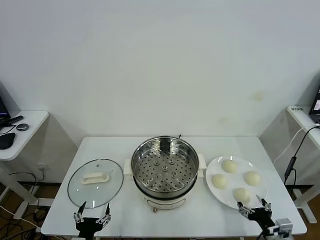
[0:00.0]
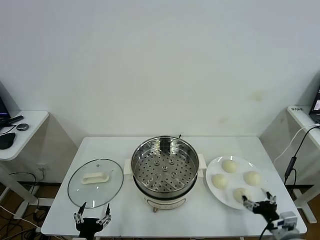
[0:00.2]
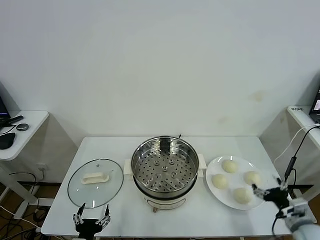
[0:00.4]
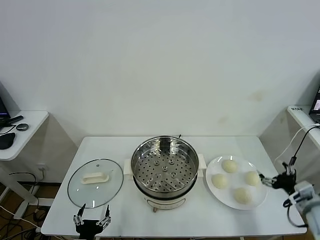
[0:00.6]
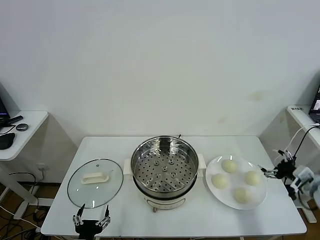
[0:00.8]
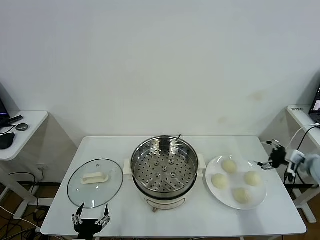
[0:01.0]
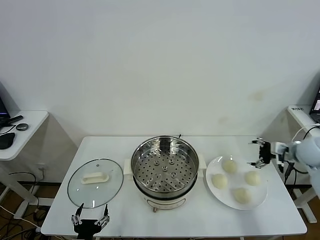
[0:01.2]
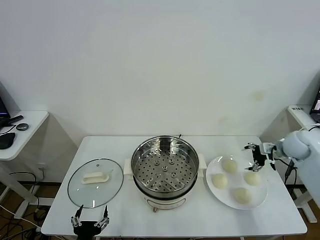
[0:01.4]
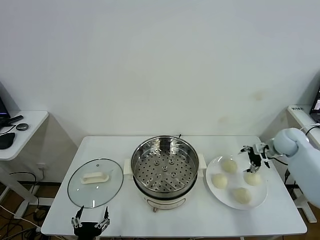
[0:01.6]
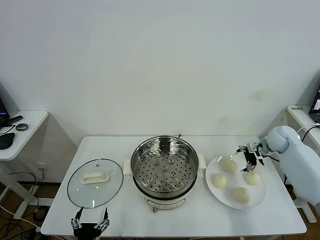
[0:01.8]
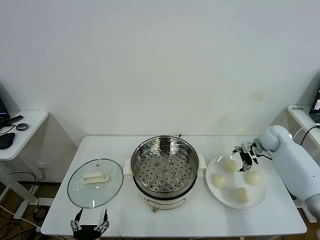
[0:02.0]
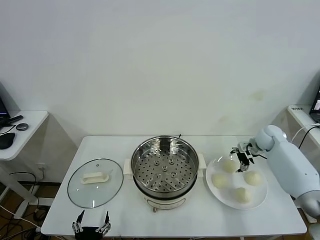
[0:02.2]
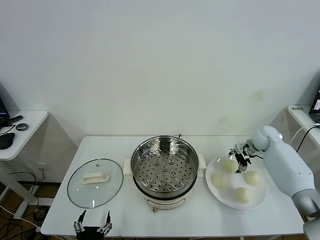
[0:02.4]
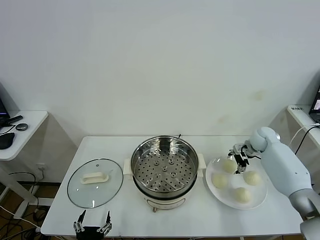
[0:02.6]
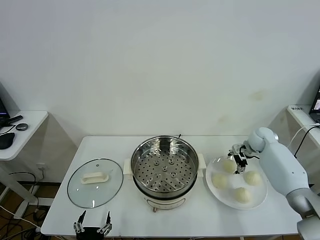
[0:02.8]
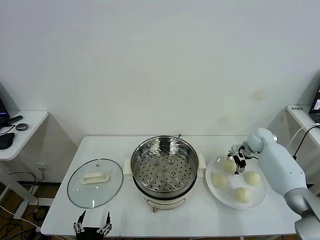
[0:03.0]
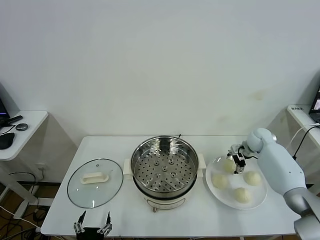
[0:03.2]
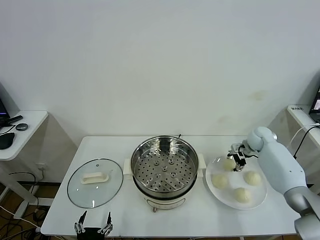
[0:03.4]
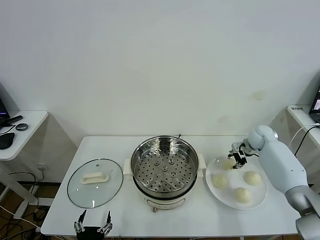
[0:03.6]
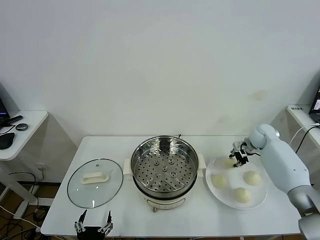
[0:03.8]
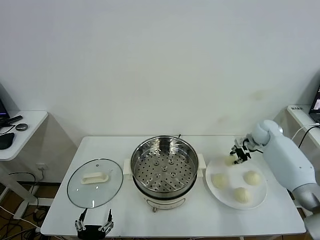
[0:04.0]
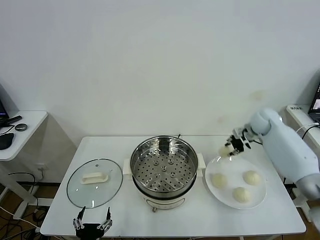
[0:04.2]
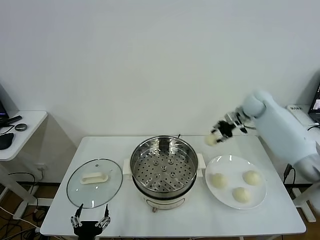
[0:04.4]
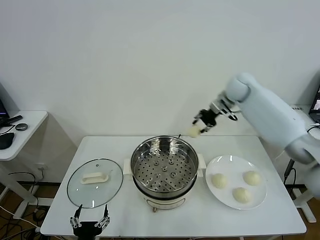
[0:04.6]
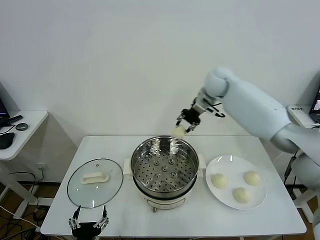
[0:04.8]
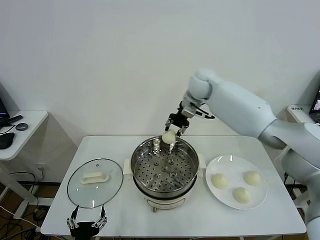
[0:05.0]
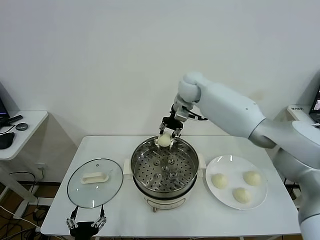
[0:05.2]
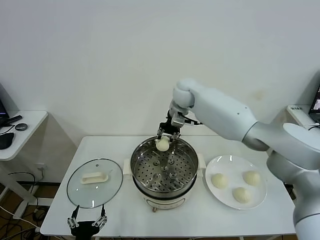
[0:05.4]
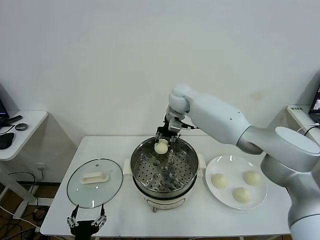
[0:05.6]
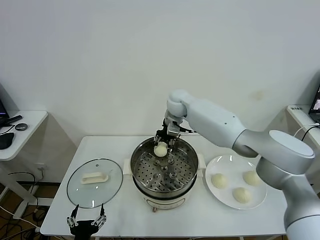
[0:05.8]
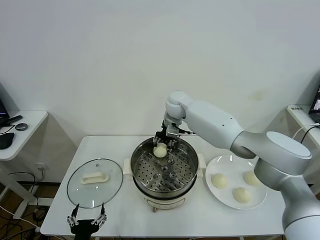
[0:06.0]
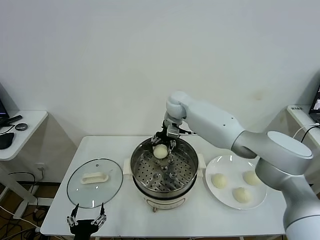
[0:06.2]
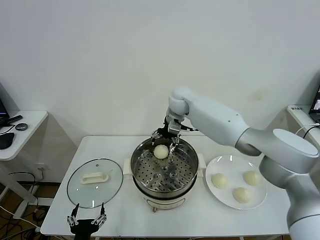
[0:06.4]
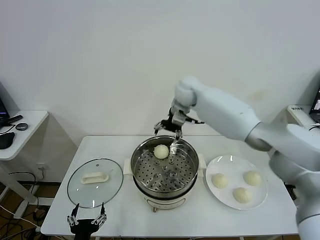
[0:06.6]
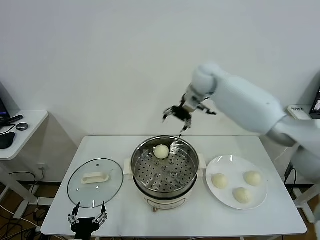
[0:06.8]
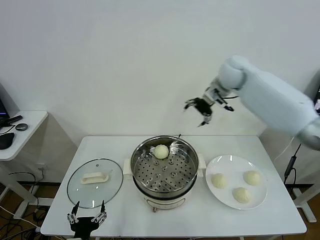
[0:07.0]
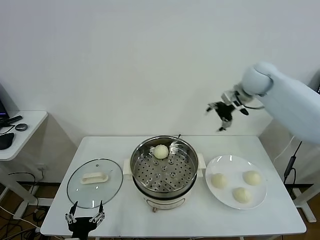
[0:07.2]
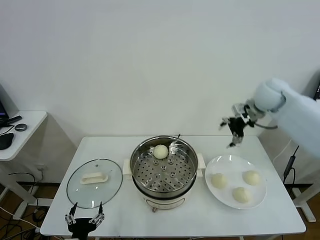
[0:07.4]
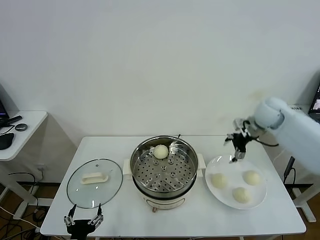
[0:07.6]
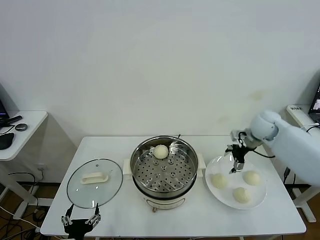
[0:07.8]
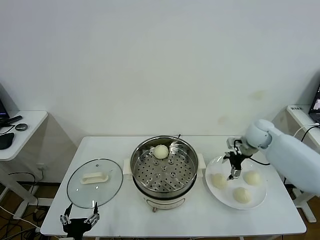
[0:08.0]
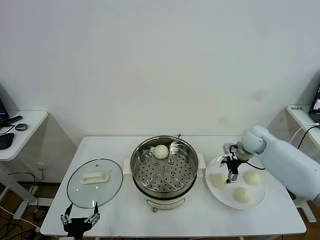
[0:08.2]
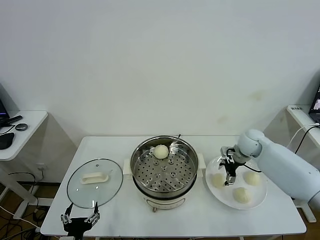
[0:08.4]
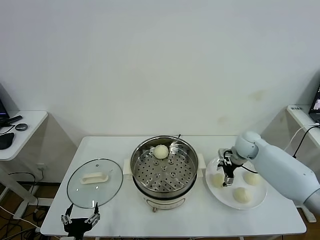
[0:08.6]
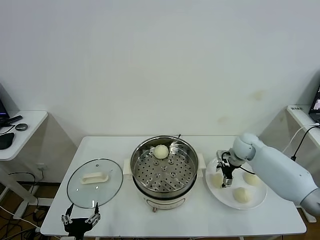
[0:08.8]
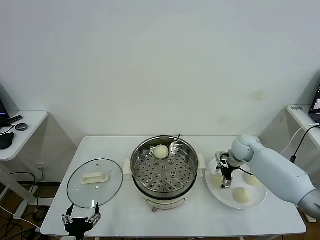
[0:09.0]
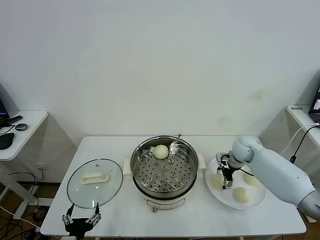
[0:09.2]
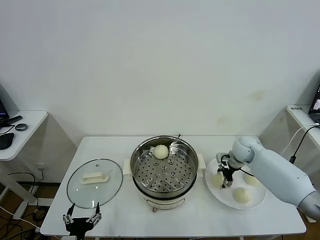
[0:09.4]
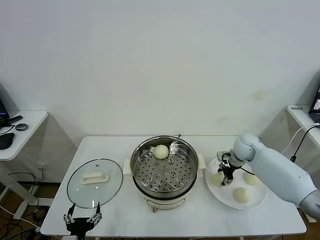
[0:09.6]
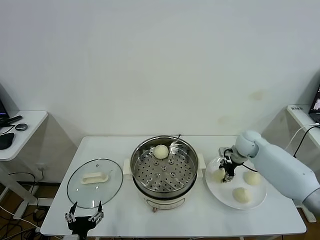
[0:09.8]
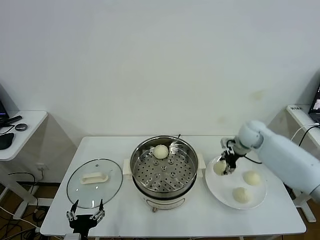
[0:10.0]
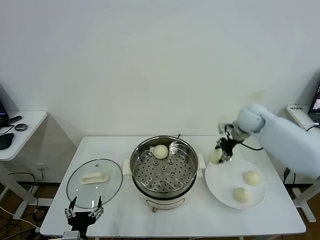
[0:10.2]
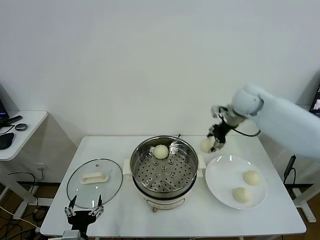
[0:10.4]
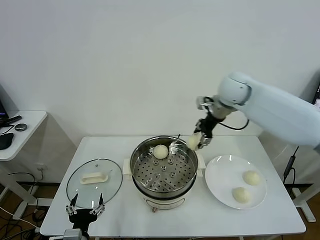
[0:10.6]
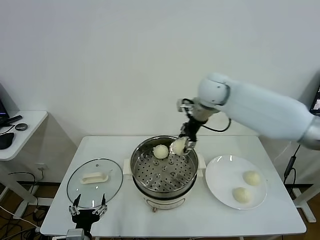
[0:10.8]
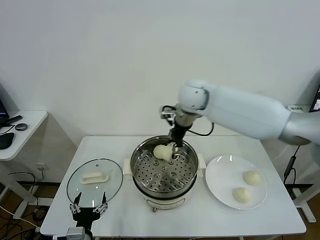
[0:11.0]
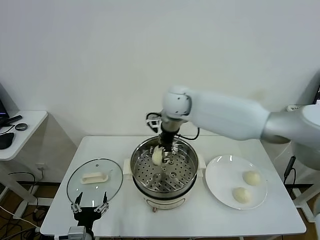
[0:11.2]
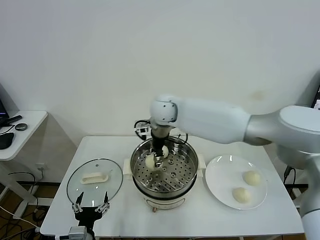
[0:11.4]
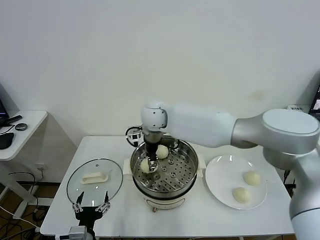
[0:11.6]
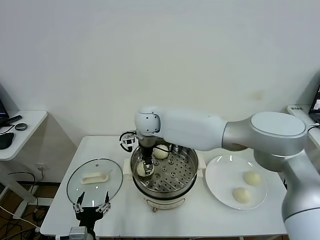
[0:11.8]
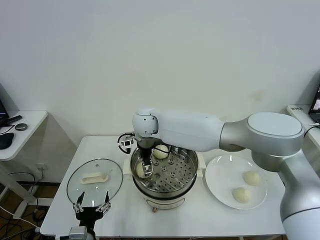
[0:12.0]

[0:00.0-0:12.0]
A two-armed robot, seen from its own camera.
Task of the whole recording: take steamed baozi put them in steamer.
Step, 0:00.0 to 0:03.4: Grasp the baozi in the plate with right gripper.
Step, 0:03.6 to 0:06.2: Place the baozi on the steamer with right gripper.
Step, 0:06.6 to 0:09.4: Grasp the baozi in the plate with right gripper.
0:01.6 to 0:03.0: The right gripper is displaced downward and forward by about 10 cm.
0:03.0 to 0:04.4: The right gripper shifts some 20 cm upward and to the left, and closes up.
0:04.4 to 0:06.0: The right gripper moves to the left, approximately 25 cm.
0:06.0 to 0:07.6: The right gripper is displaced to the right by about 30 cm, and opens.
0:07.6 to 0:09.0: The right gripper travels downward by roughly 15 cm.
0:09.0 to 0:10.4: The right gripper heads upward, covering about 20 cm, and closes.
0:10.4 to 0:12.0: The right gripper shifts approximately 30 cm to the left, and opens its fingers.

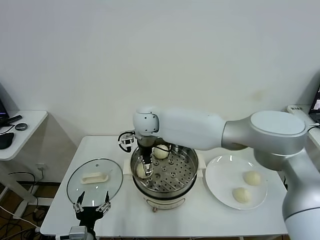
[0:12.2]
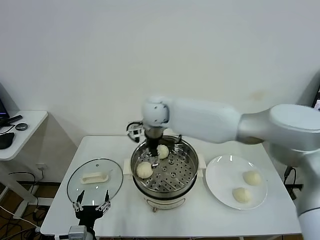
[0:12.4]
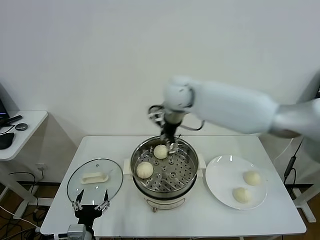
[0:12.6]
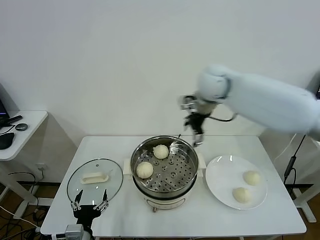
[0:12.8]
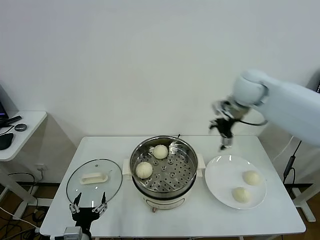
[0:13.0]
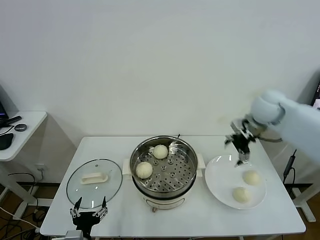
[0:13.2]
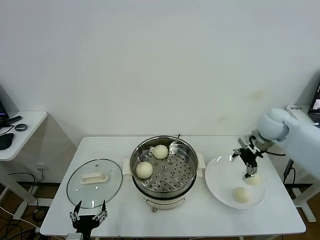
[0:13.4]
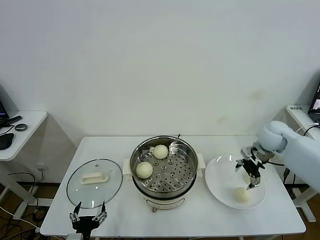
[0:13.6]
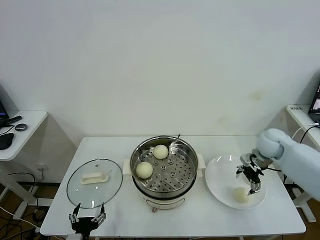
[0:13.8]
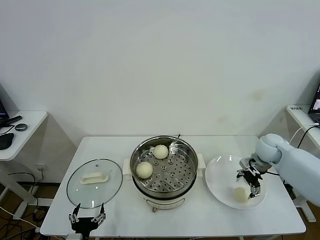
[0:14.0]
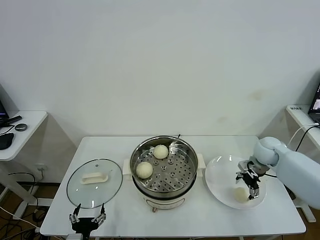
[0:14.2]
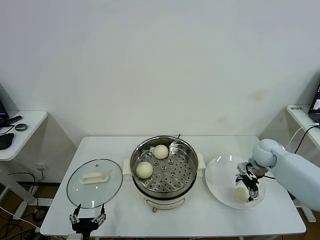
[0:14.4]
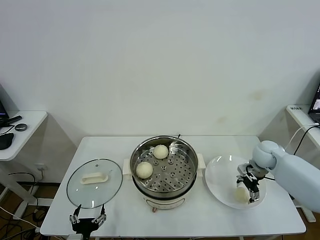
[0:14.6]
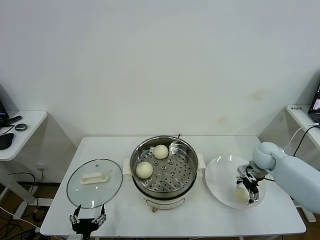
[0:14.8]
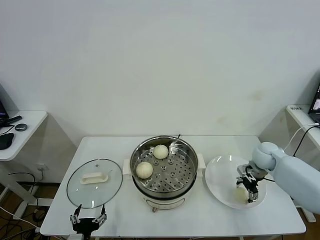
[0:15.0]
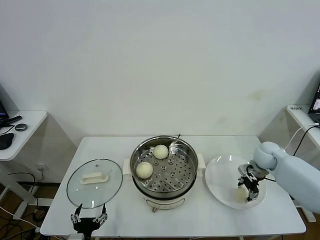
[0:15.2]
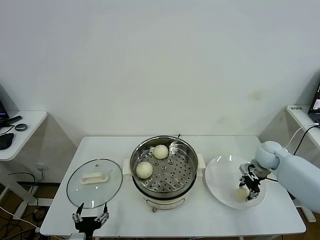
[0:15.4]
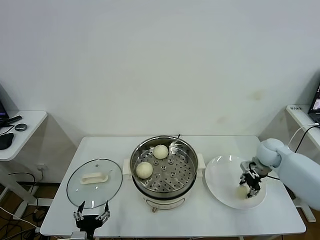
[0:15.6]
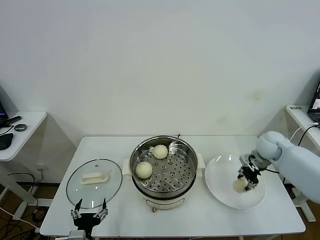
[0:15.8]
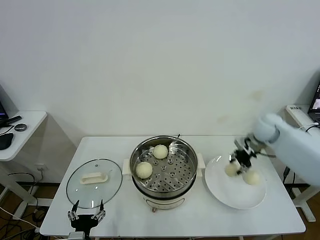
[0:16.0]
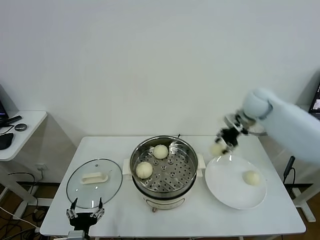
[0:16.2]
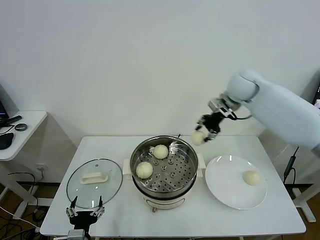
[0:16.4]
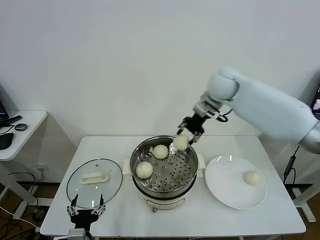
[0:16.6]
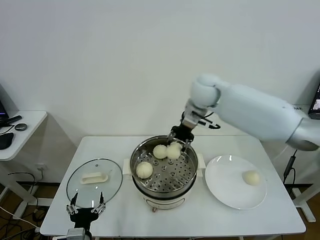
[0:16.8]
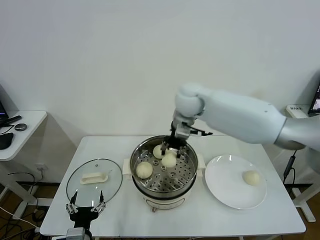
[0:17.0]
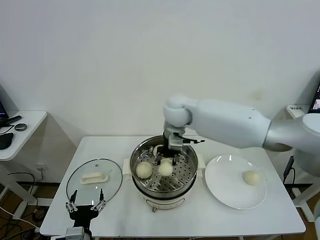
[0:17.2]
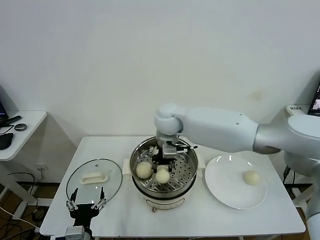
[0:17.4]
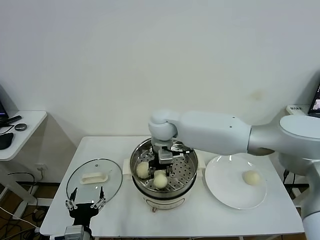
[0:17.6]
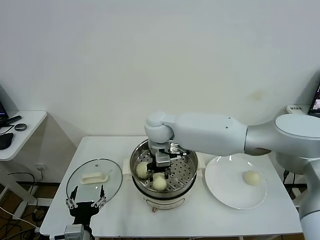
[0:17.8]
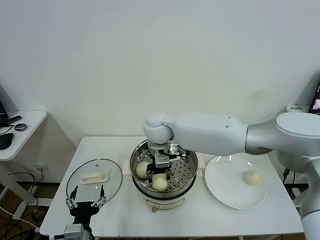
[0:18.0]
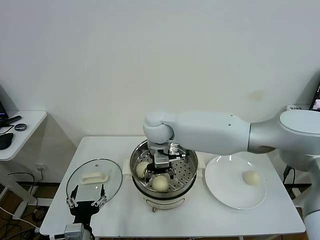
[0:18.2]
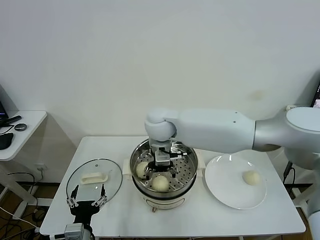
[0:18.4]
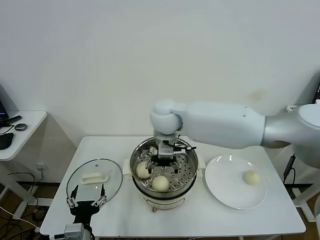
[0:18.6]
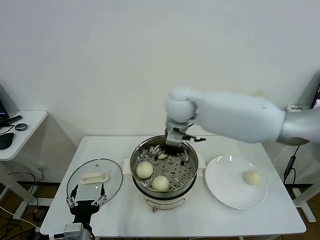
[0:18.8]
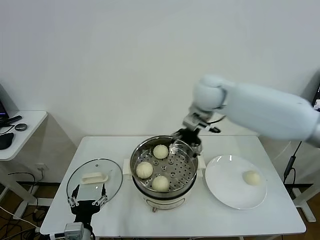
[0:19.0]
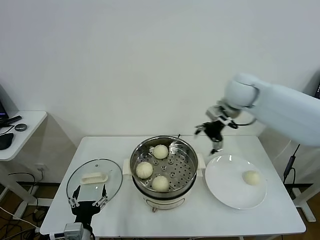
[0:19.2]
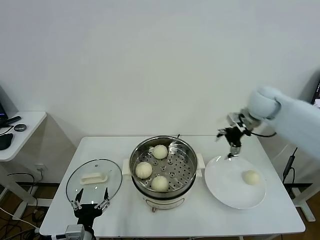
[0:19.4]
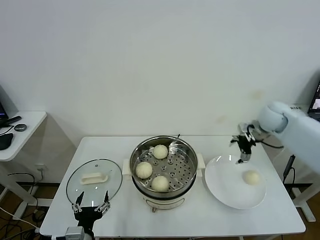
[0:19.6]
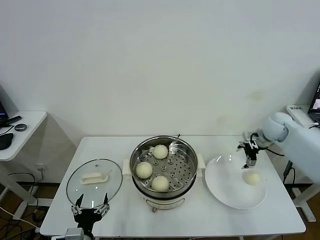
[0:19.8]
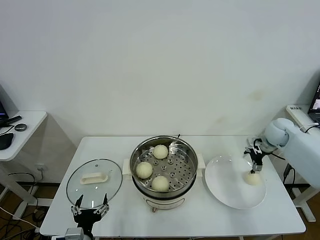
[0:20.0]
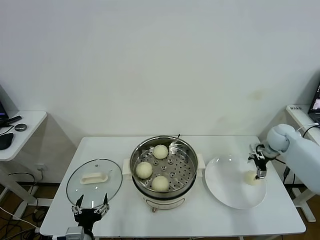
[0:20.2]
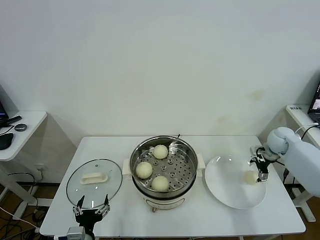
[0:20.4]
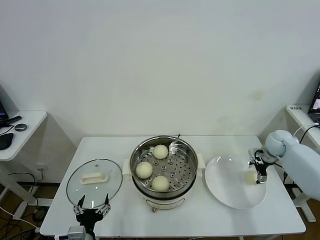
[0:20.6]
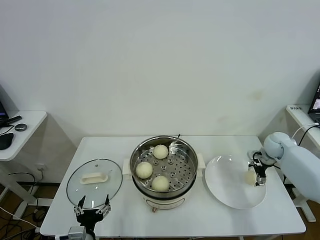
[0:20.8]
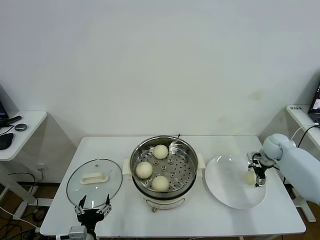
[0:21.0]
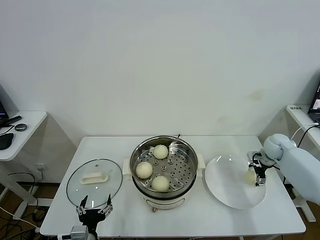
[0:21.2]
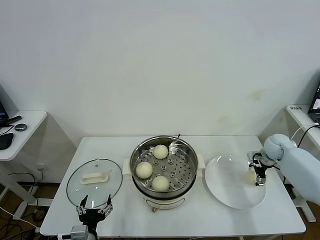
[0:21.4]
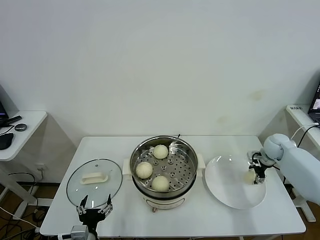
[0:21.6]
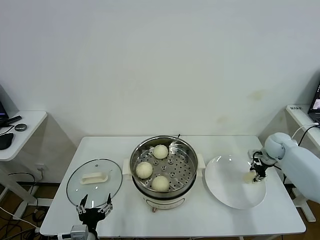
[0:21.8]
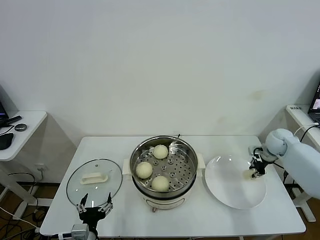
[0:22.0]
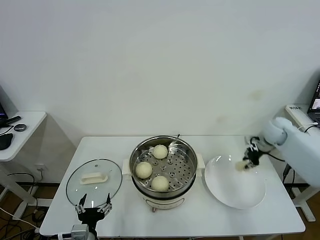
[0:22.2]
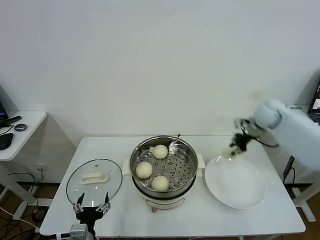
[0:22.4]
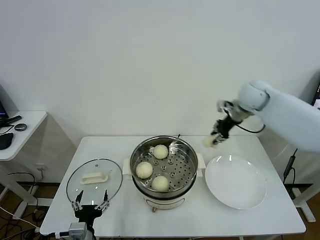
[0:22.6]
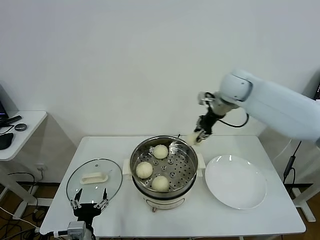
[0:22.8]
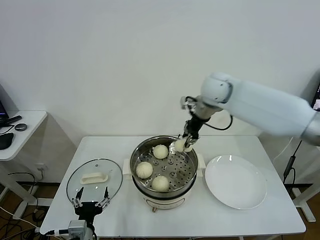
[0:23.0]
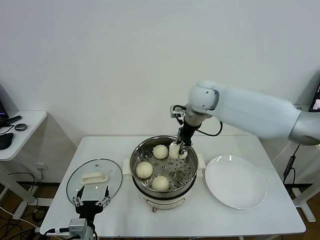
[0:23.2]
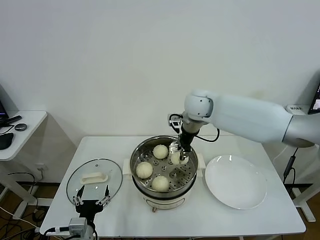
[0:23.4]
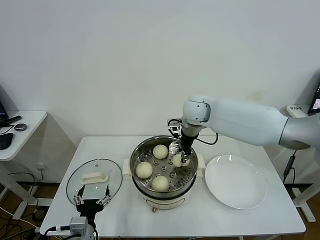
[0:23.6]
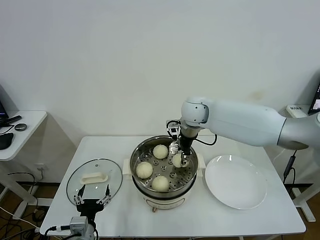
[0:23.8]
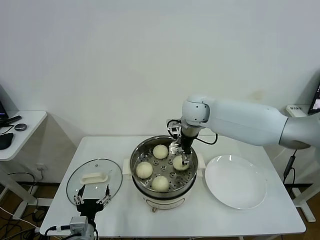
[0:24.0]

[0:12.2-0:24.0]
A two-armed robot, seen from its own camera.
Task of the whole recording: take steamed baozi put them in steamer.
Step, 0:12.2 to 0:15.2: Grasp the baozi in the plate with right gripper.
Step, 0:15.4 to 0:18.6: Place the baozi on the steamer with right gripper.
Step, 0:18.8 to 0:21.6: Grasp the baozi in the plate with right gripper.
0:12.2 to 0:13.6: The right gripper moves to the right, approximately 40 cm.
0:13.6 to 0:15.2: The right gripper is displaced downward by about 10 cm, and closes up.
0:15.2 to 0:16.6: The right gripper moves upward and to the left, roughly 35 cm.
0:16.6 to 0:18.2: The right gripper travels to the left, backward and downward by approximately 20 cm, and opens its fingers.
0:18.2 to 0:19.6: The right gripper is displaced to the right by roughly 40 cm.
0:19.6 to 0:21.0: The right gripper is displaced downward and to the right by approximately 15 cm.
0:21.0 to 0:22.6: The right gripper travels upward and to the left by some 25 cm, and closes up.
0:22.6 to 0:24.0: The right gripper heads to the left, covering about 20 cm, and opens up.
